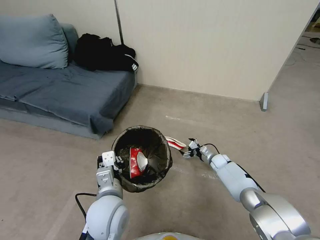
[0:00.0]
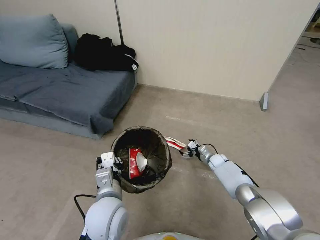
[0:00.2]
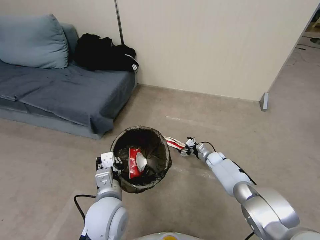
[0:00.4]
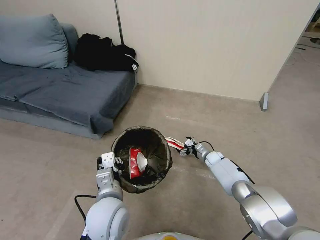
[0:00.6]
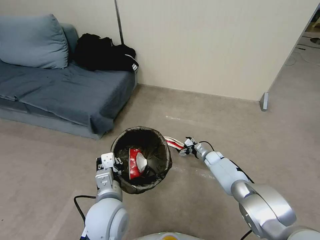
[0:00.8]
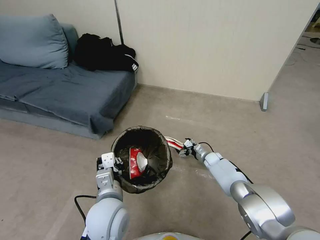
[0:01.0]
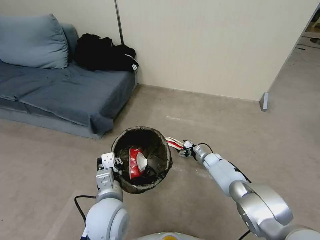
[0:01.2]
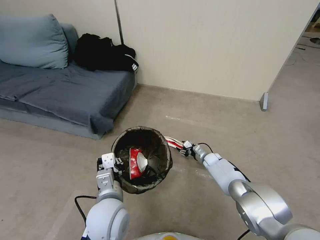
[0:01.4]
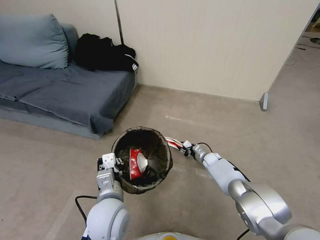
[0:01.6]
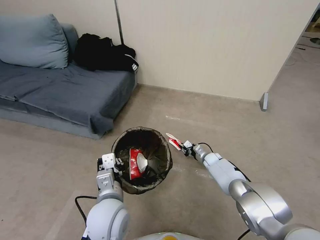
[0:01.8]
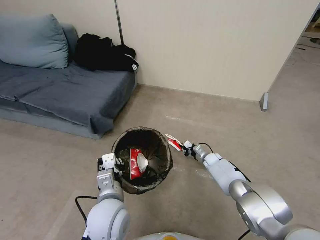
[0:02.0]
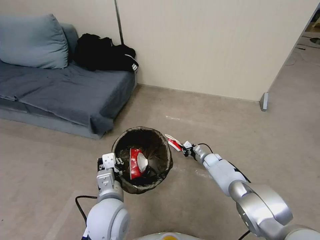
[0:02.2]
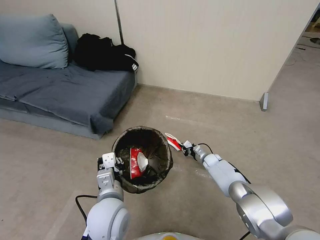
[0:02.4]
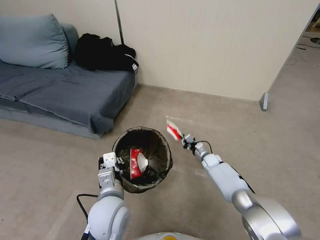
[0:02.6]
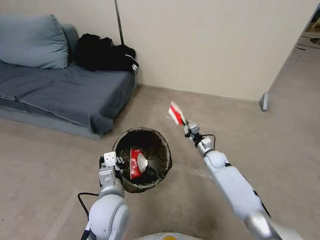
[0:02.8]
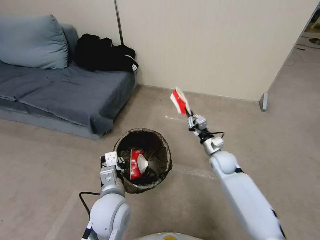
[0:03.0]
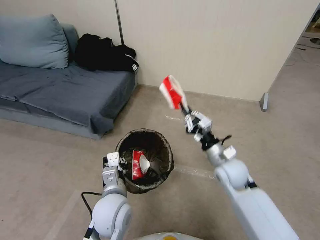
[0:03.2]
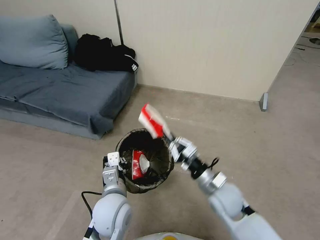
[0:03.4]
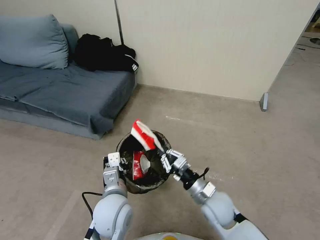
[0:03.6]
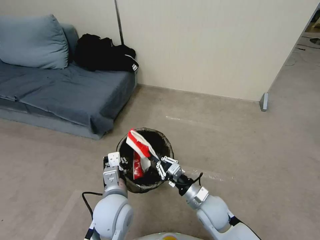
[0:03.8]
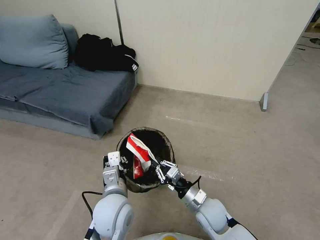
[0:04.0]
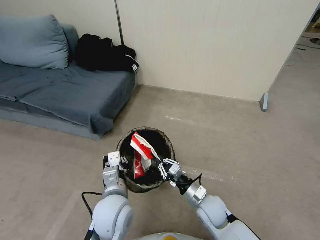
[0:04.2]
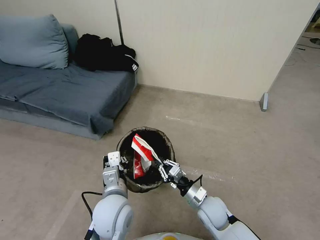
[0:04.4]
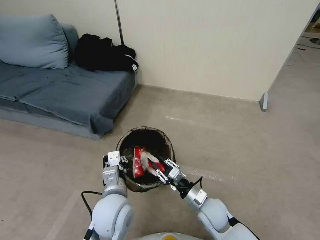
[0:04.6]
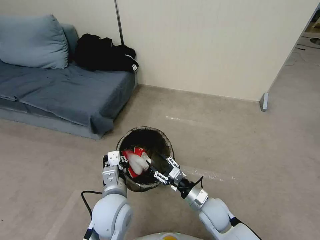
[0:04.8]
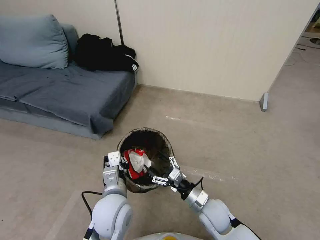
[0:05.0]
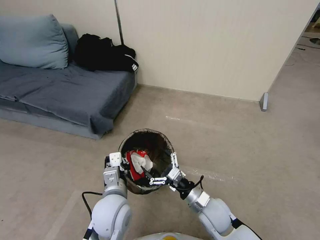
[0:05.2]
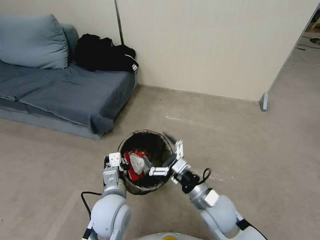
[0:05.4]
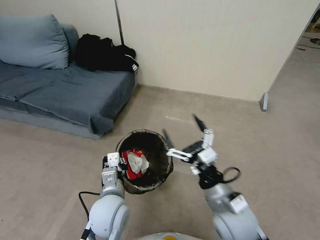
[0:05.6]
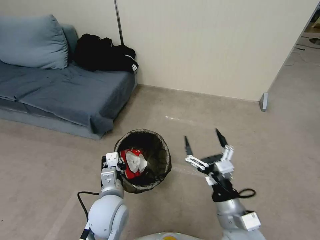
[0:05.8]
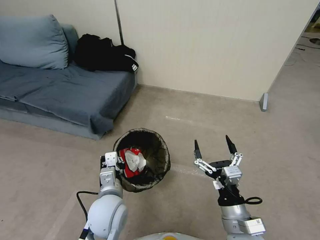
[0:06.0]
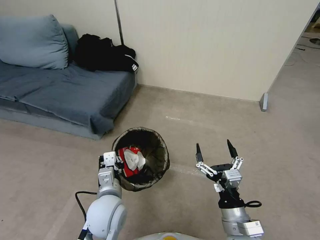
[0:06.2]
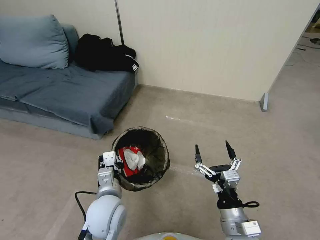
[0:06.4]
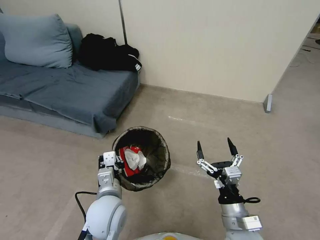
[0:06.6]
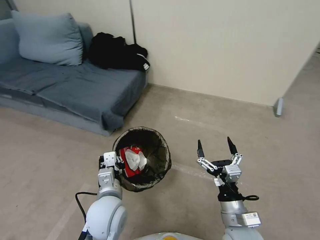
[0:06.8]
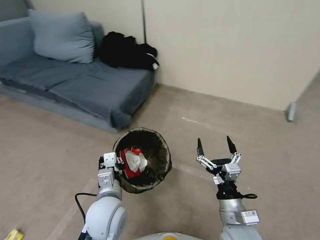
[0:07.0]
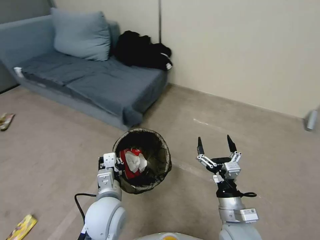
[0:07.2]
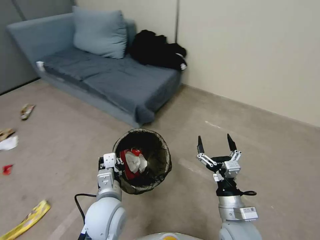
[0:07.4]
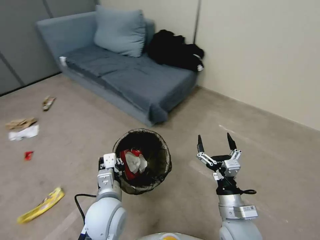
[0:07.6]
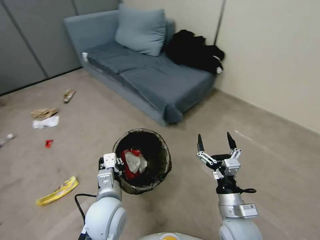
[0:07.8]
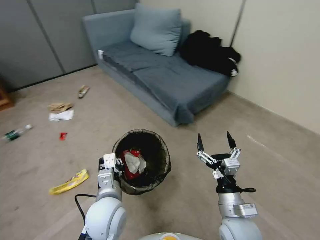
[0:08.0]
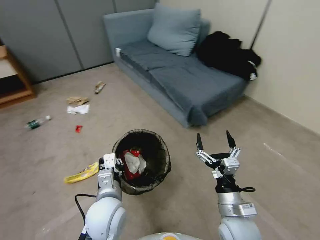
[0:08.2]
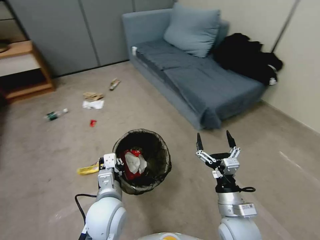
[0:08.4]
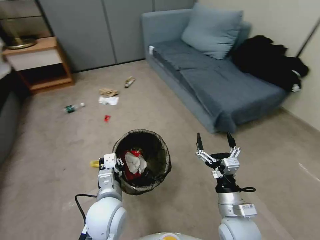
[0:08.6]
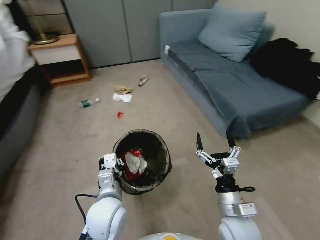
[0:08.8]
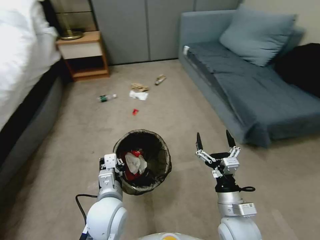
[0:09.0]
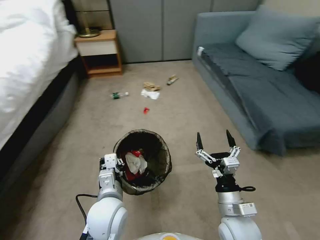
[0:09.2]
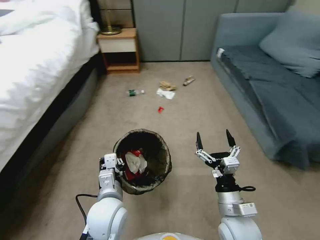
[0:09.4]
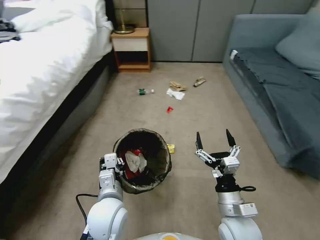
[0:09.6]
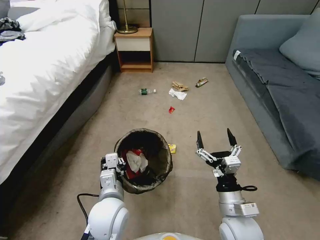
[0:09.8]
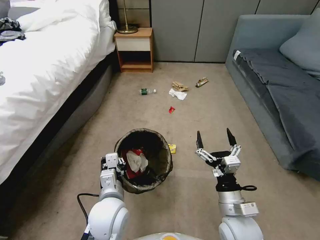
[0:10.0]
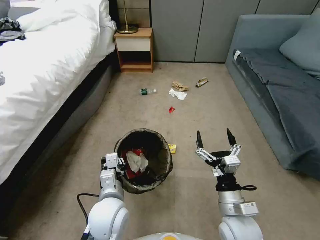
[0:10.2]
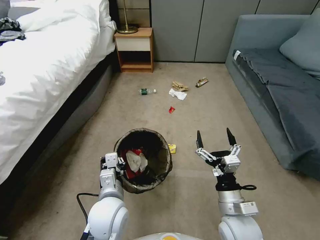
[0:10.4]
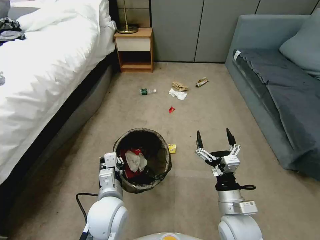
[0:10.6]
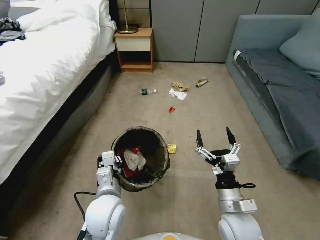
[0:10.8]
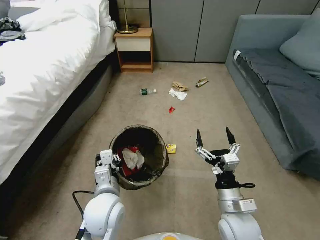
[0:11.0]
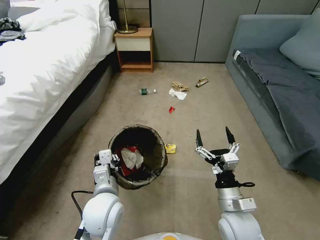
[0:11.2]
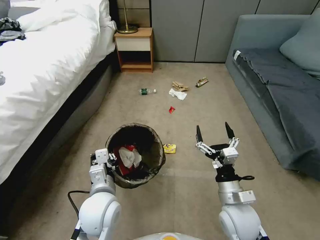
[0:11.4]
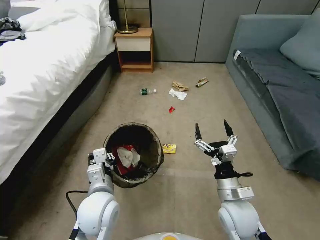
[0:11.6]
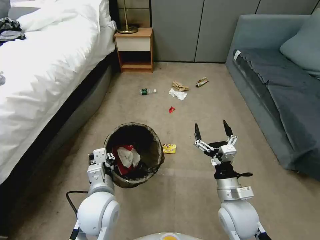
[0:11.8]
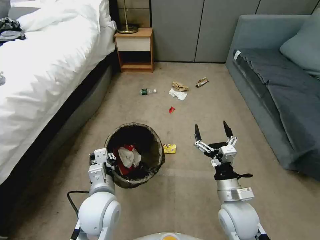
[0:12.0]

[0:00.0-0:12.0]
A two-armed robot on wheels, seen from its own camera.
Task of the whole recording: Pick up the trash bin, then pick up the garbage from the floor and place it into the trash bin.
0:00.0 to 0:01.6: The right gripper closes.
0:01.6 to 0:03.0: The right gripper is displaced upward and backward by approximately 20 cm.
0:03.0 to 0:04.4: The right gripper is displaced backward, to the left and downward by about 20 cm.
0:04.4 to 0:06.0: The right gripper heads upward and backward, covering approximately 15 cm, and opens.
0:10.4 to 0:12.0: The grippers make only small movements.

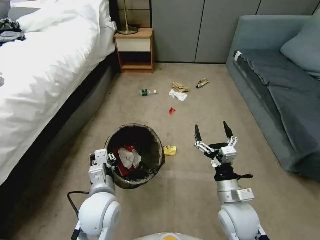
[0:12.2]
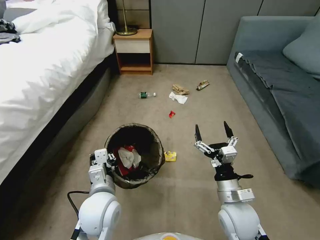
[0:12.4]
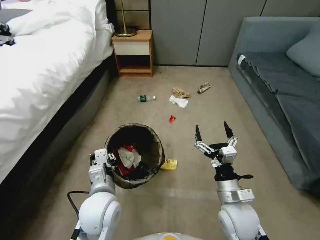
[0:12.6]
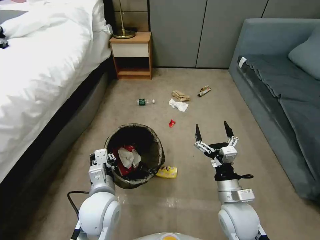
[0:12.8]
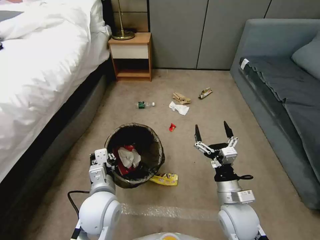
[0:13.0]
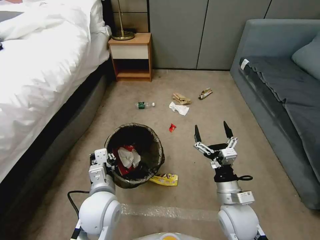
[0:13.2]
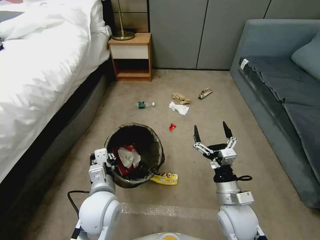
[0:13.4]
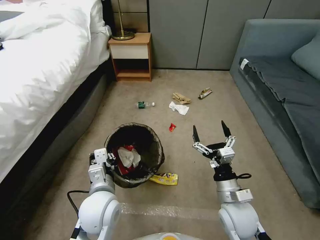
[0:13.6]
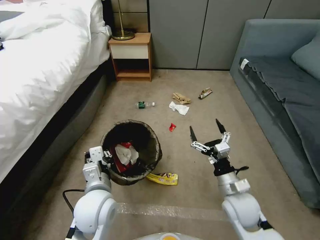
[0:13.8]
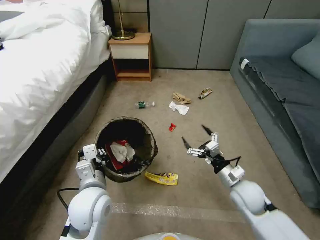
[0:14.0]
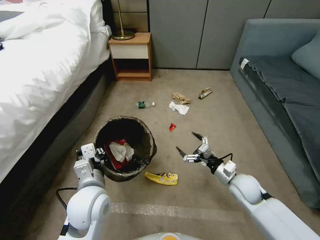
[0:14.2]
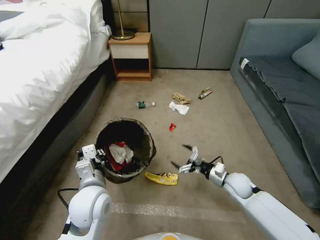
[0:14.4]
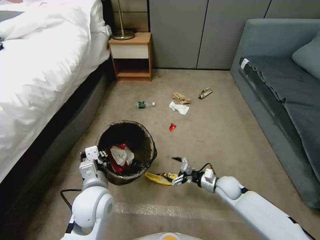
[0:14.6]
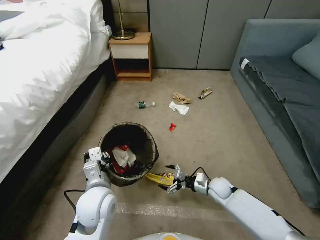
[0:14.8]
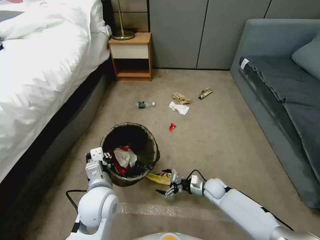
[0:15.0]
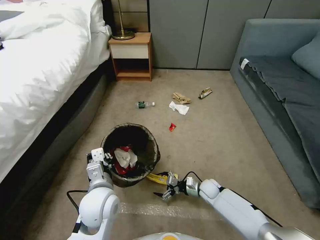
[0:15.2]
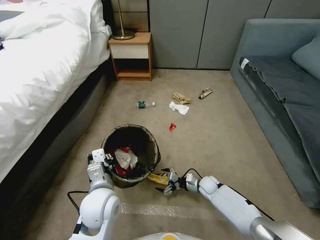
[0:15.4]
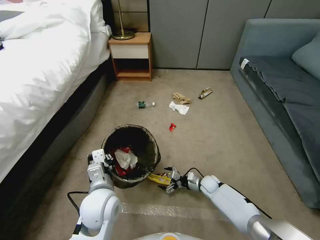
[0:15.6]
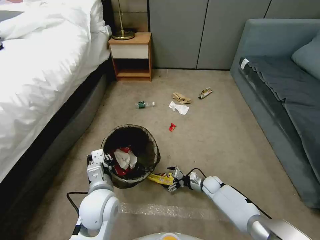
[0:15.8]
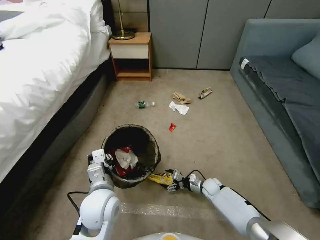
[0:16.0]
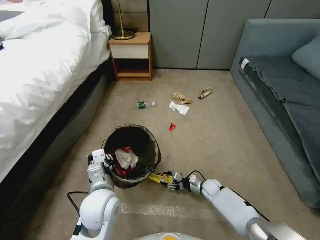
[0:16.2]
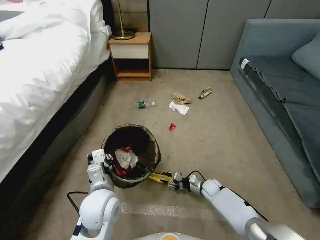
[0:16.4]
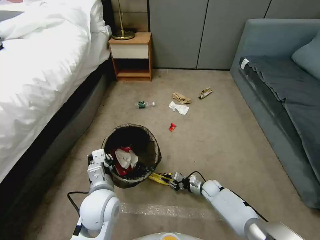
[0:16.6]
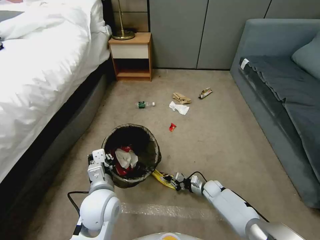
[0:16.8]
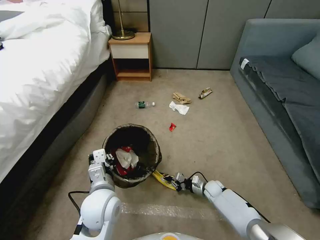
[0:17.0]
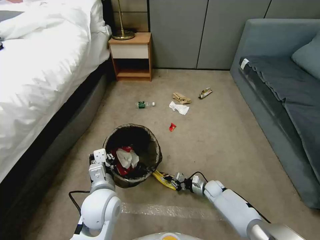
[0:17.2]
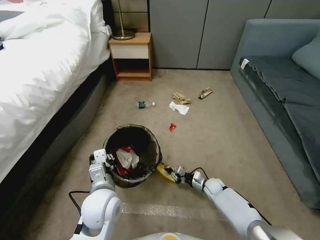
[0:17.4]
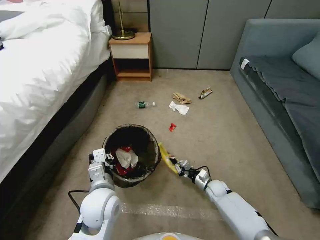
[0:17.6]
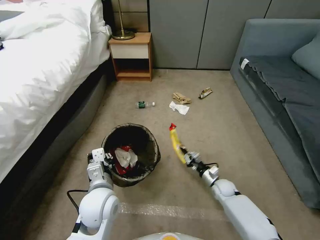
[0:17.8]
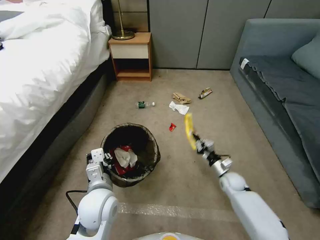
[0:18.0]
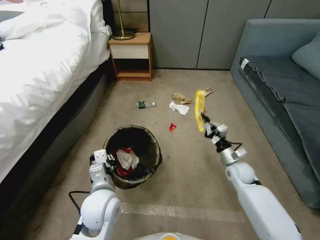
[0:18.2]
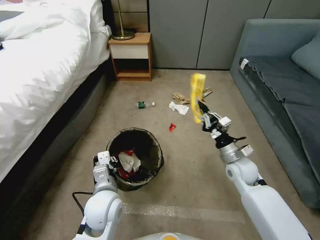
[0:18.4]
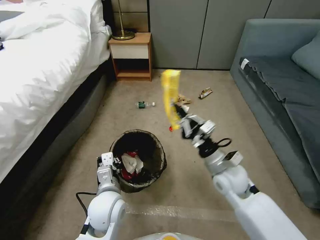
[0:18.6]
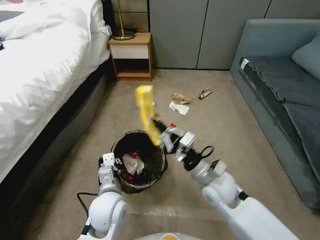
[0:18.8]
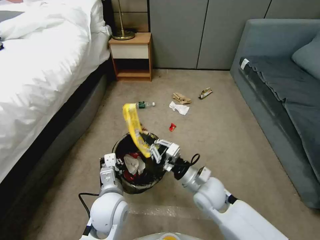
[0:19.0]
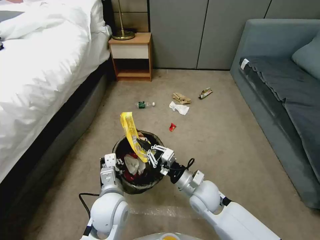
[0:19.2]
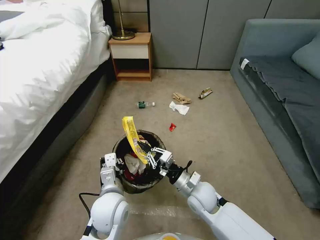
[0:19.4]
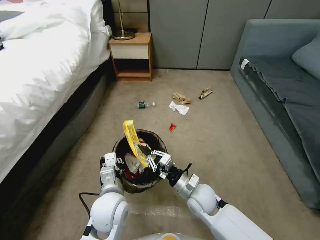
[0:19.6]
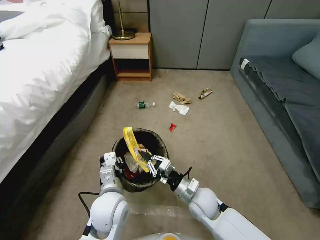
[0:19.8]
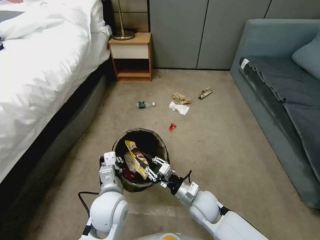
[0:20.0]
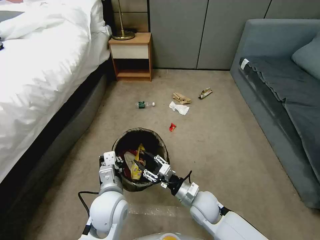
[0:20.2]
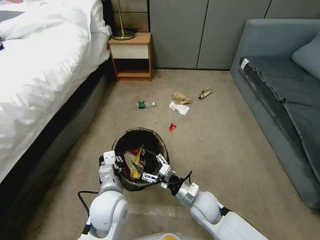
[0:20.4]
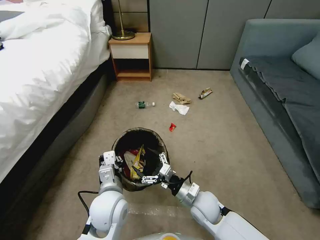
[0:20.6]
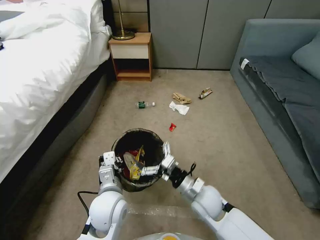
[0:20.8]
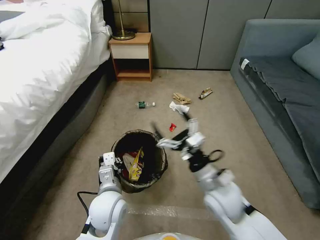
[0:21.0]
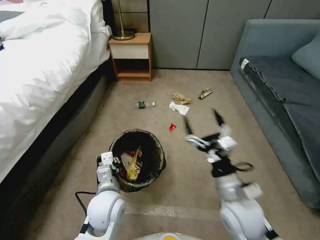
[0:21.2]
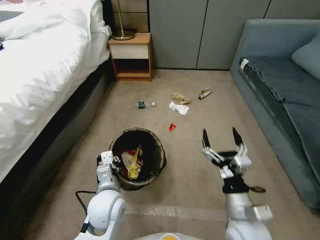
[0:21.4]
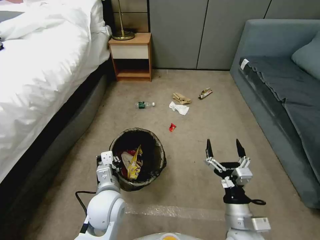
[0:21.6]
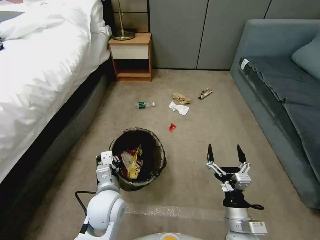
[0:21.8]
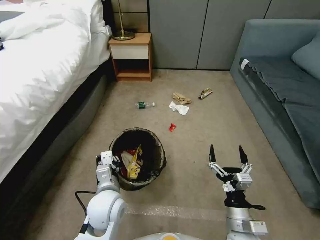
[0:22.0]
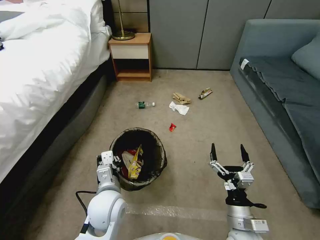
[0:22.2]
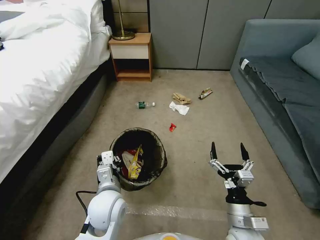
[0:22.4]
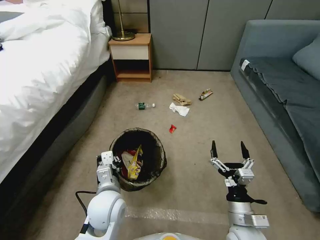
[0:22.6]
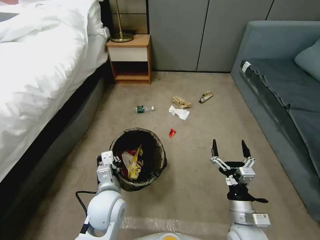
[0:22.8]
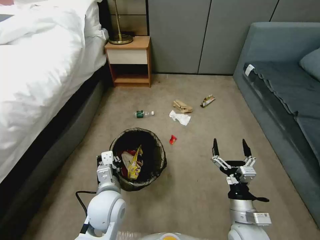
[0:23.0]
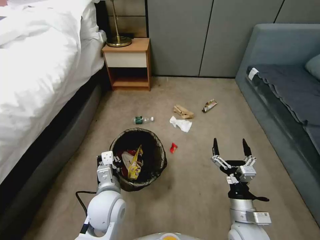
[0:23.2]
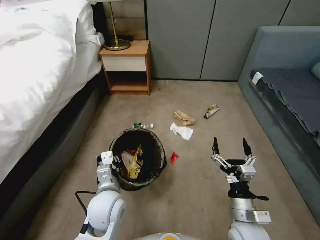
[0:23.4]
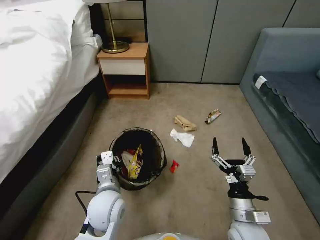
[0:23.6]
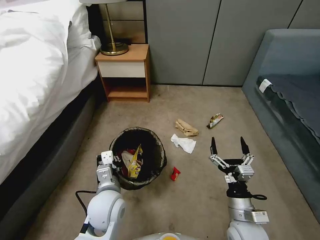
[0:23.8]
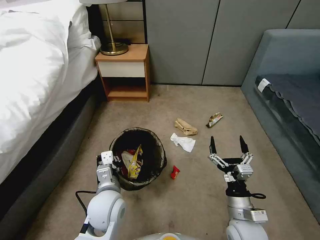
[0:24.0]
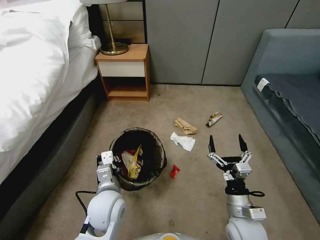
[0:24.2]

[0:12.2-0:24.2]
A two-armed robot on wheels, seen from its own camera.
Task of the whole recording: Pick up the trash bin, then pick up the garbage from the floor and place it into the trash bin.
0:13.8 to 0:15.2: The right gripper heads downward and forward, covering about 25 cm.
0:15.2 to 0:16.6: The right gripper closes its fingers.
0:16.6 to 0:18.2: The right gripper shifts some 20 cm upward.
0:18.2 to 0:19.8: The right gripper travels to the left and backward by some 20 cm.
0:19.8 to 0:21.2: The right gripper goes some 15 cm upward, to the right and backward, and opens its fingers.
0:21.2 to 0:22.6: The right gripper goes roughly 10 cm downward.
